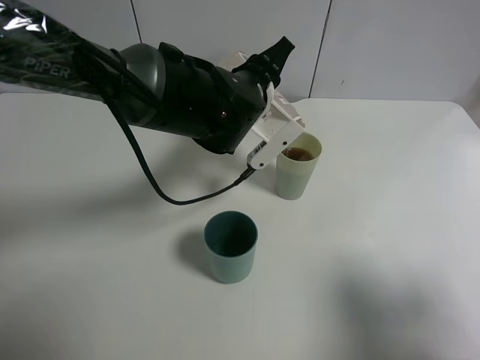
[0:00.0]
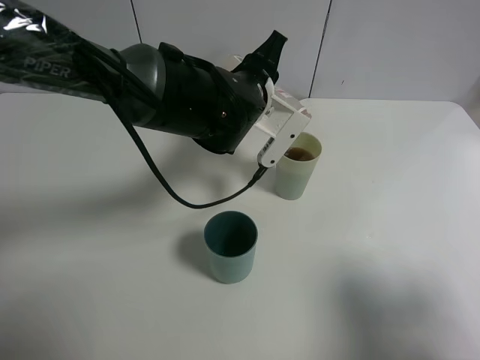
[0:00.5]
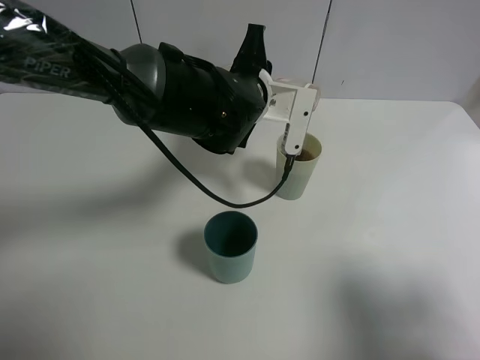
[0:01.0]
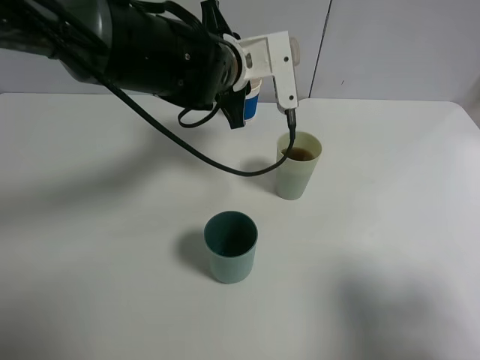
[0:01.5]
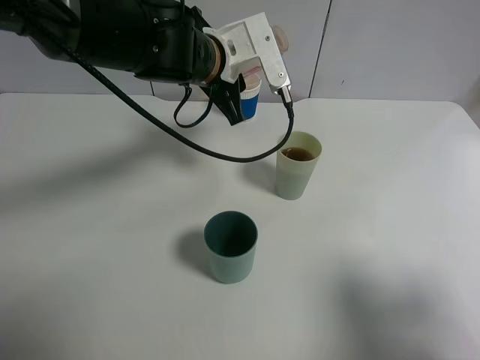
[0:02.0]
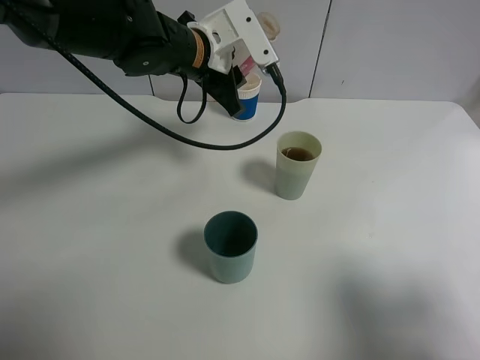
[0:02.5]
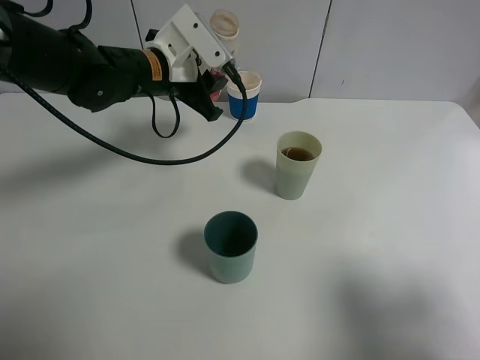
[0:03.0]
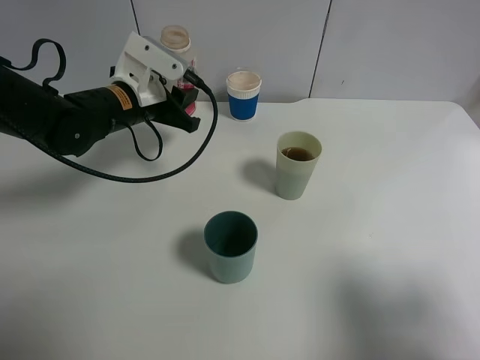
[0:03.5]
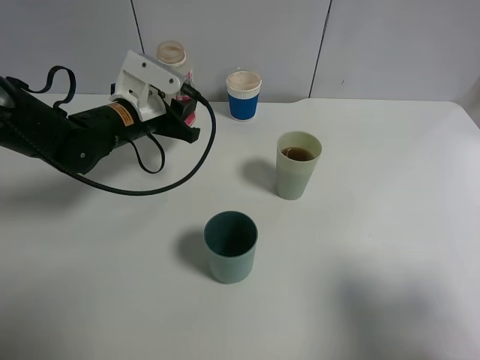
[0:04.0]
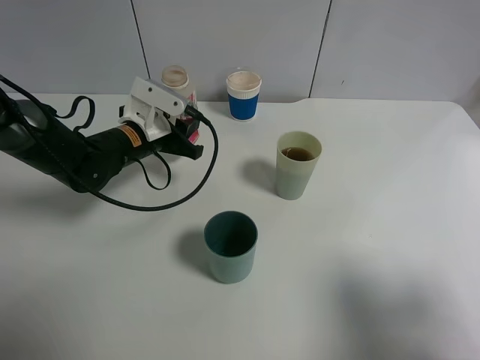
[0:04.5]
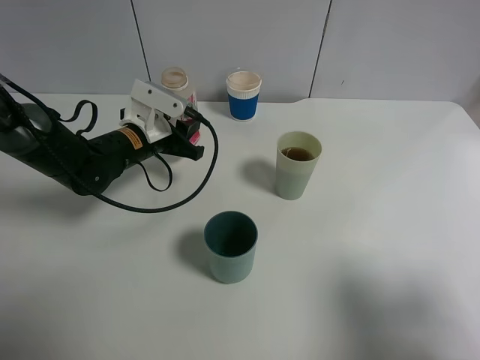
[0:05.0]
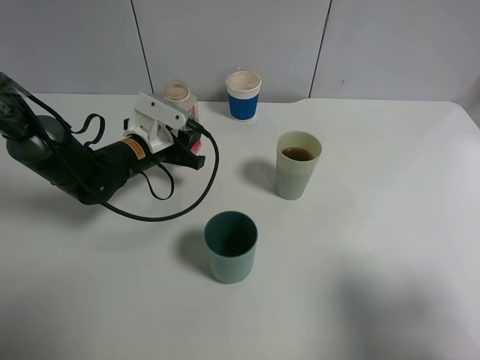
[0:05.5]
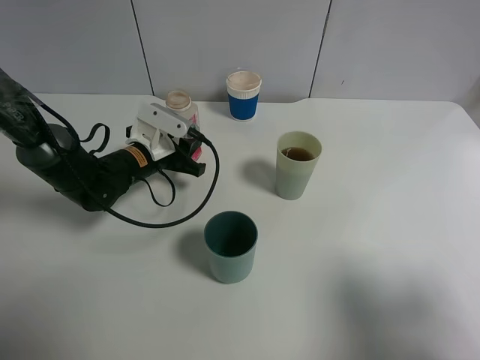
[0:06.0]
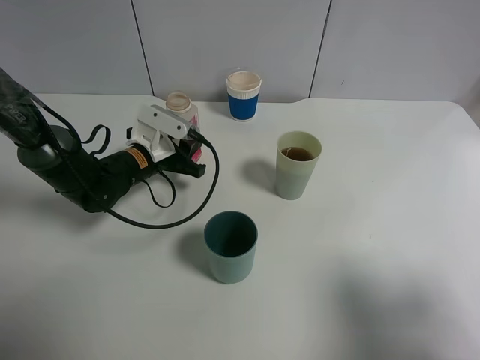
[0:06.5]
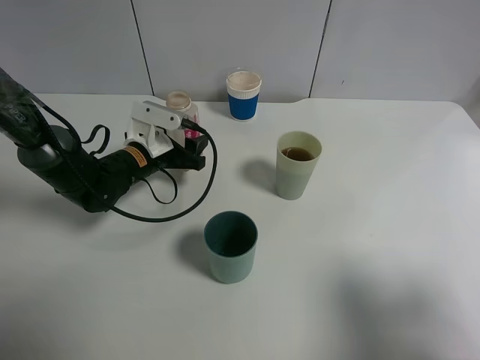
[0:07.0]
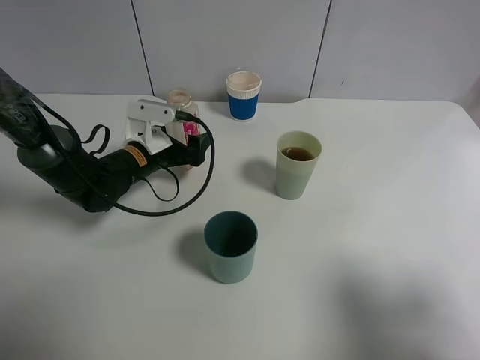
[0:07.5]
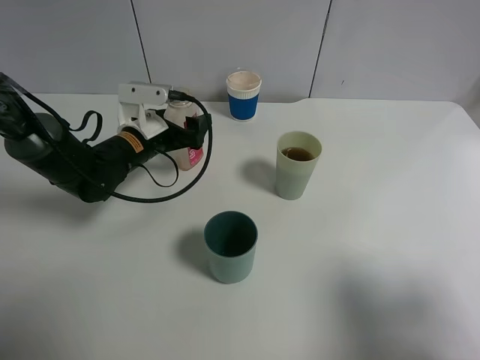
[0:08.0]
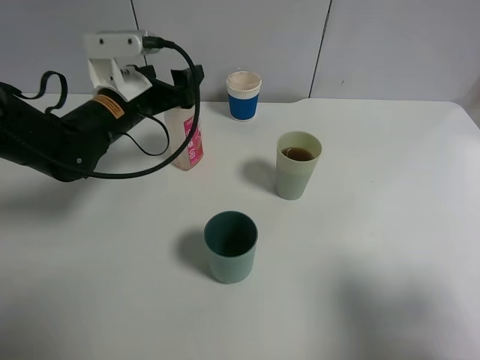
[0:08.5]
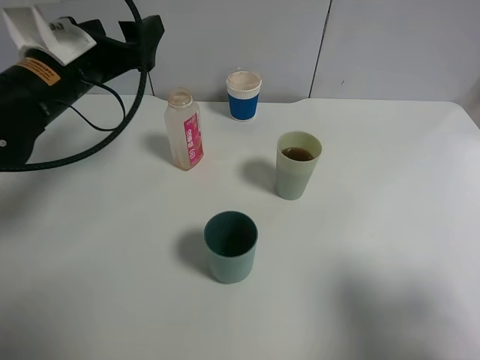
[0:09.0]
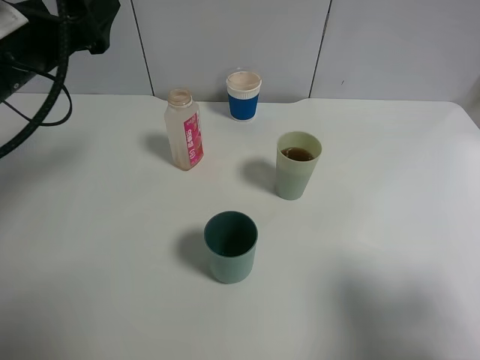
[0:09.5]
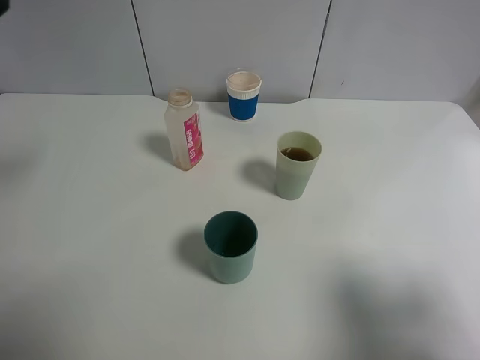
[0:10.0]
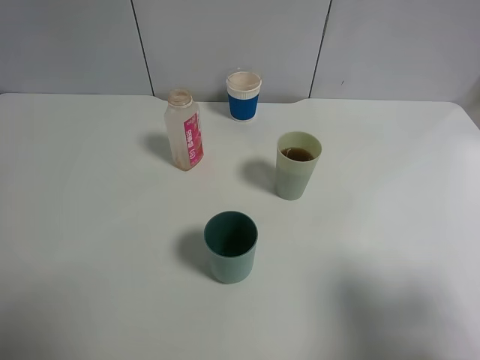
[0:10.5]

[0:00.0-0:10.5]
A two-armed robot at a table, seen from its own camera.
Task of the whole recording: use a gripper to hold the bottle of the drink and pour it into a random cup.
Step, 0:01.5 to 0:08.0: Place the cranberry juice bottle on the table with the left gripper.
0:00.0 to 0:02.0: The left gripper shifts approximately 5 cm to the left.
0:02.0 to 0:04.0: The left gripper shifts about 15 cm to the left and downward.
0:04.0 to 0:06.5: The left gripper is displaced downward by some 10 cm.
0:06.5 to 0:08.5: The left gripper travels upward by about 10 cm, and opens.
0:08.5 to 0:10.5: The left gripper moves backward, upward and to the left, some 30 cm.

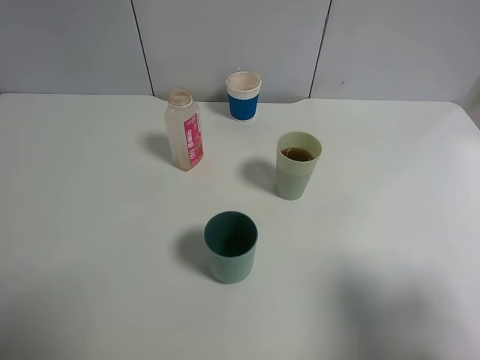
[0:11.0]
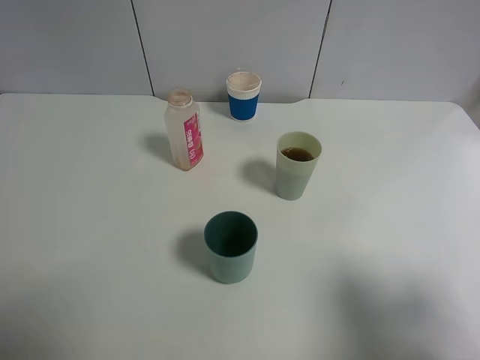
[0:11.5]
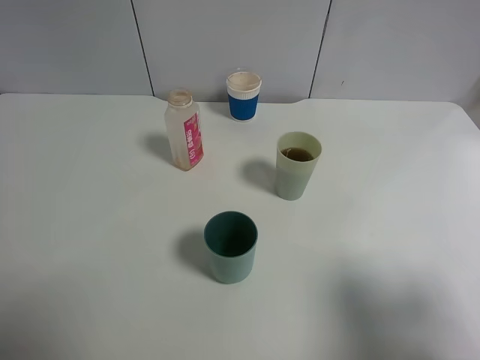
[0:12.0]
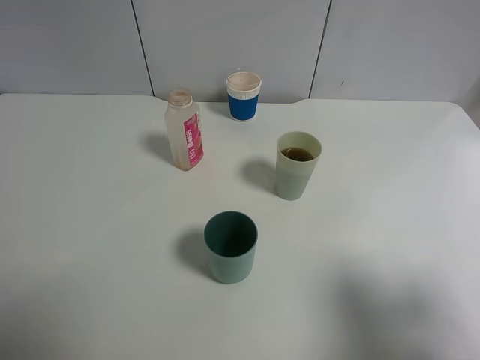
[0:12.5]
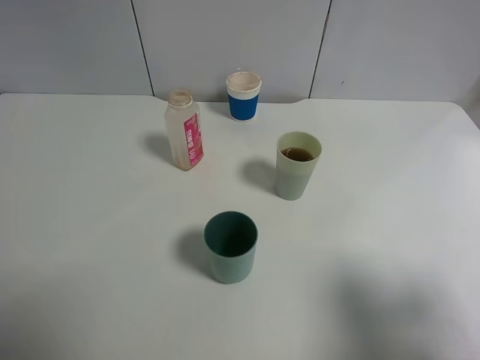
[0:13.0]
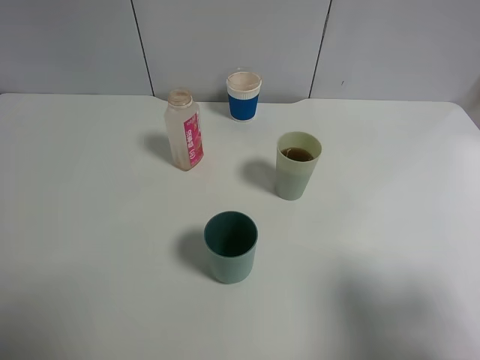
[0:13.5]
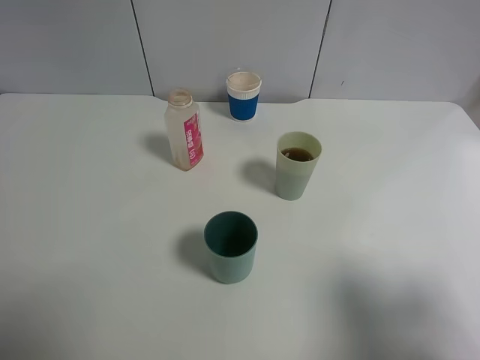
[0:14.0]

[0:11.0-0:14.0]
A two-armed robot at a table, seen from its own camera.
Task of the whole recording: use a gripper to hold the bottle of the drink and pour it into a random cup.
0:12.5 to 0:14.0: The two grippers keep their place.
